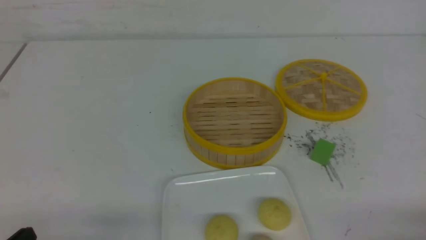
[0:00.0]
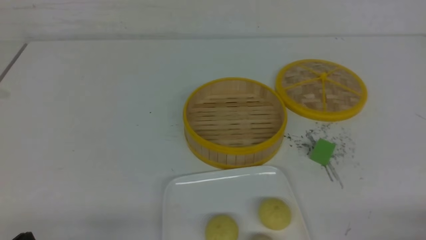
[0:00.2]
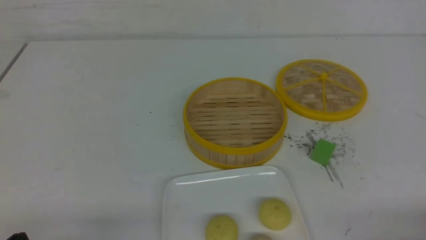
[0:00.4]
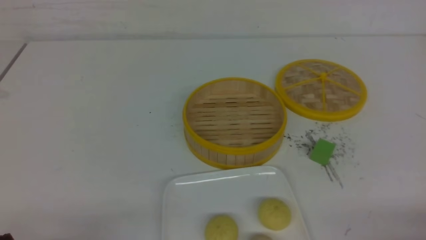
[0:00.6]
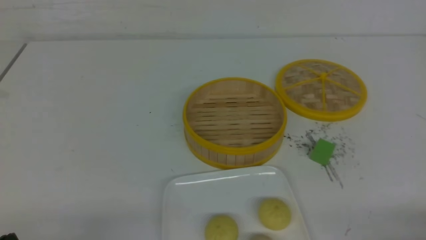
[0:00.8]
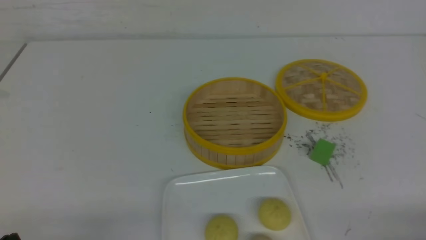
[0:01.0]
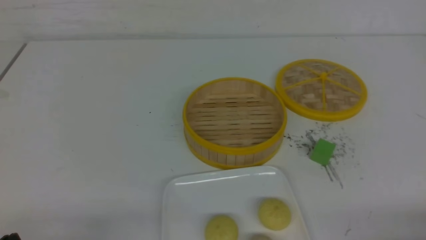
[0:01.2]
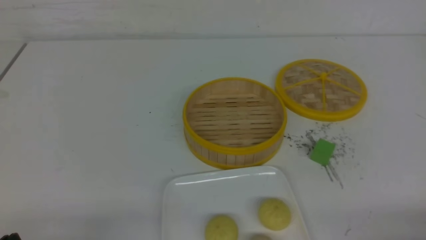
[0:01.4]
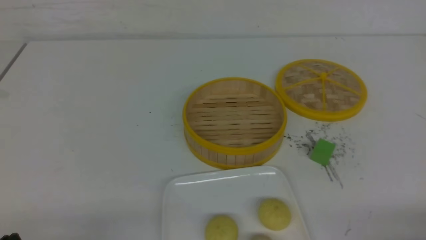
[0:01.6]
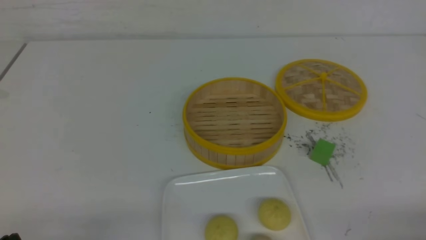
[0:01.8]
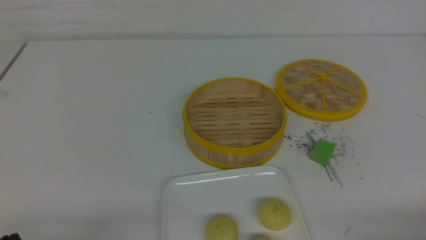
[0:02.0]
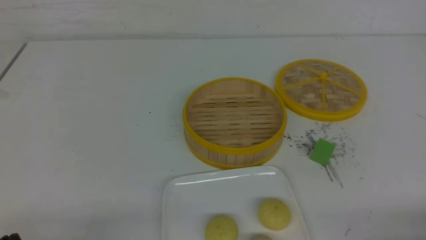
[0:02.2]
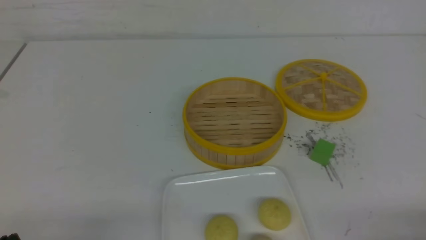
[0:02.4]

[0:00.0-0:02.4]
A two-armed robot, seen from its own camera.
0:01.2 to 0:02.4: The two grippers keep their place.
